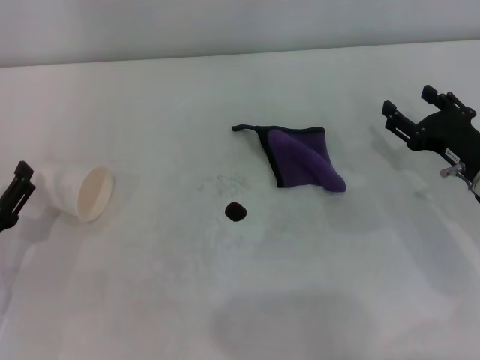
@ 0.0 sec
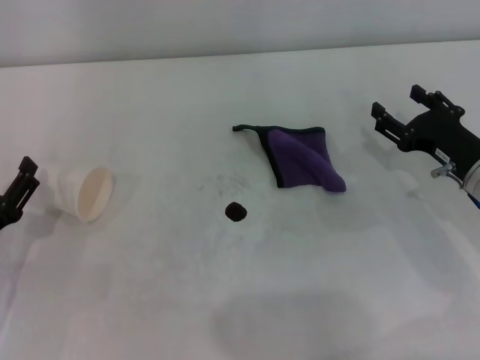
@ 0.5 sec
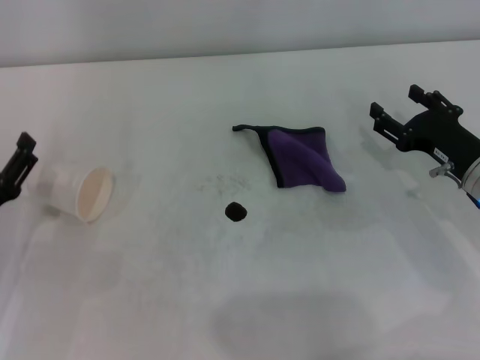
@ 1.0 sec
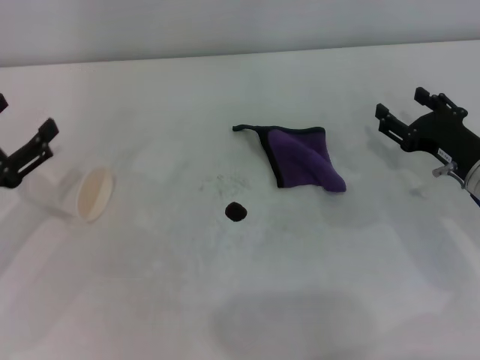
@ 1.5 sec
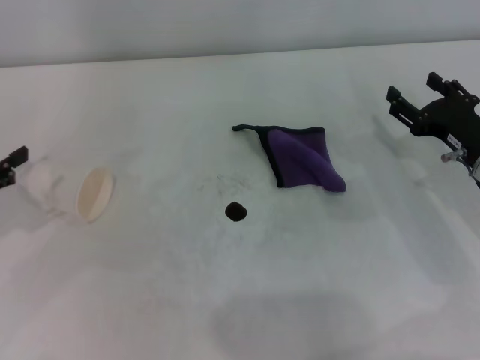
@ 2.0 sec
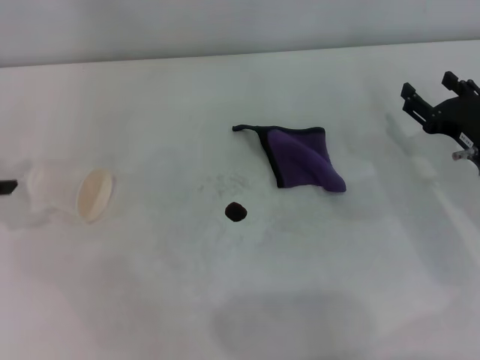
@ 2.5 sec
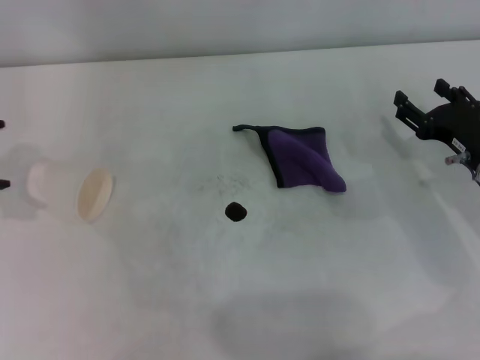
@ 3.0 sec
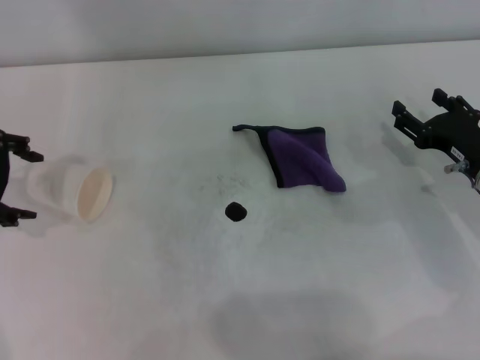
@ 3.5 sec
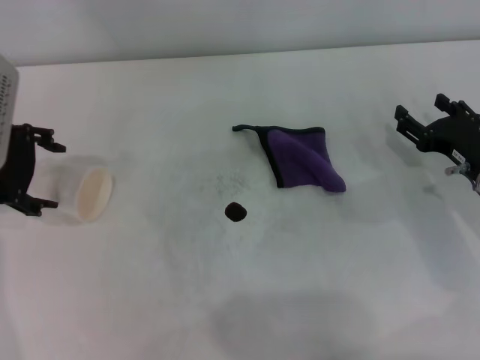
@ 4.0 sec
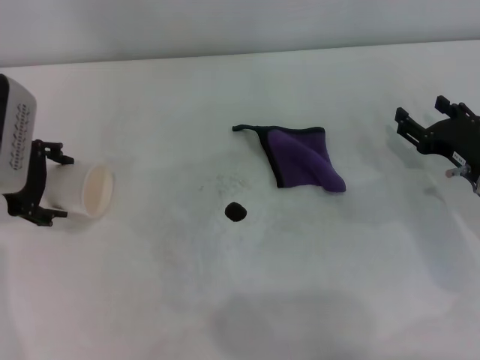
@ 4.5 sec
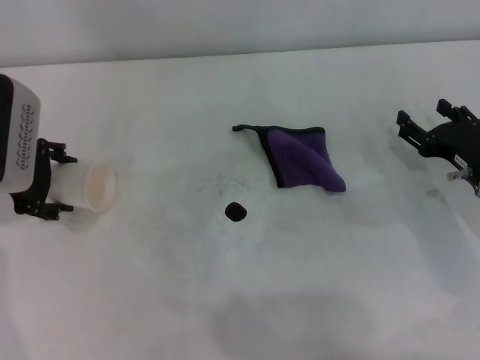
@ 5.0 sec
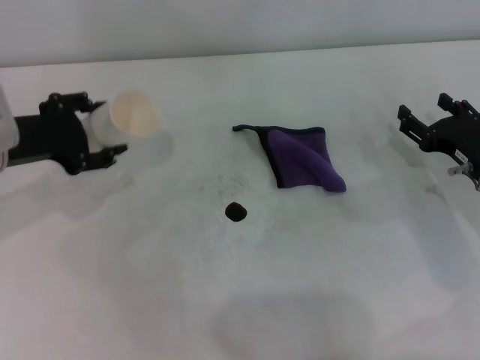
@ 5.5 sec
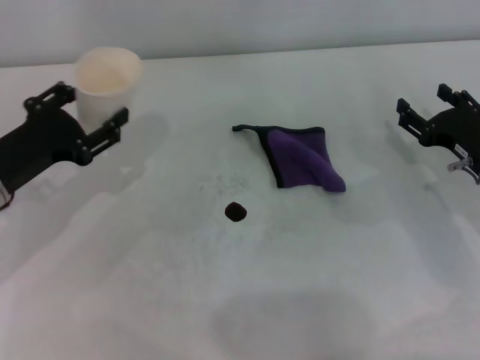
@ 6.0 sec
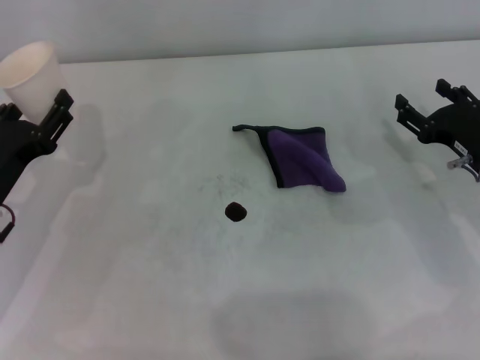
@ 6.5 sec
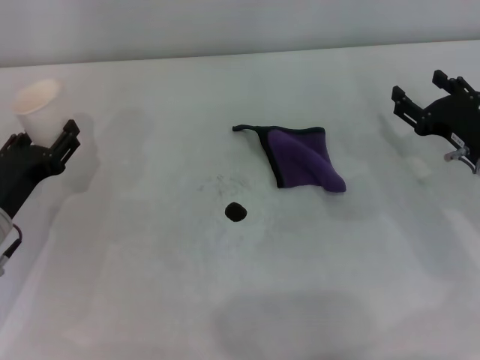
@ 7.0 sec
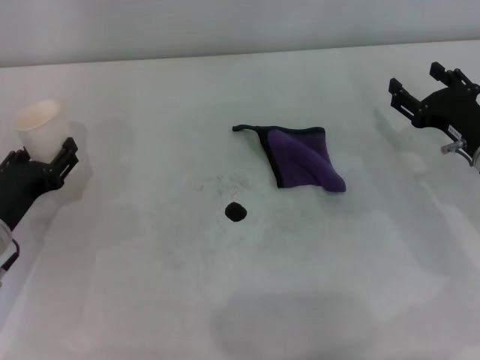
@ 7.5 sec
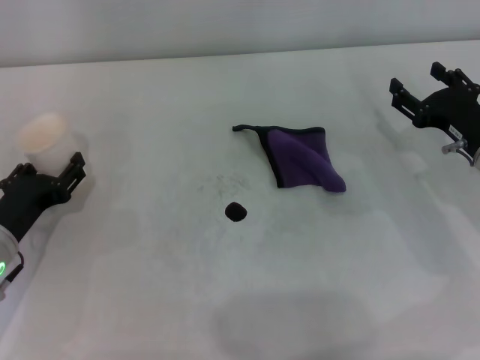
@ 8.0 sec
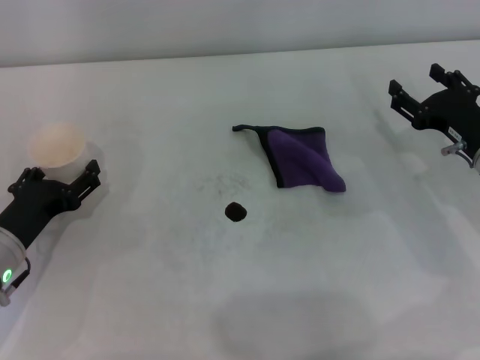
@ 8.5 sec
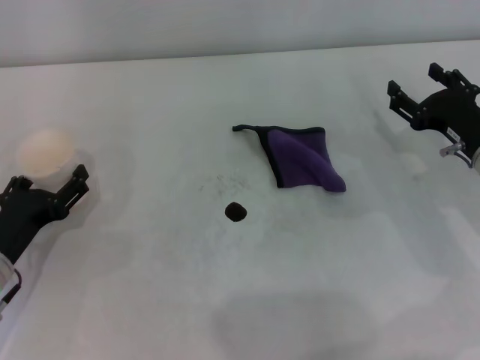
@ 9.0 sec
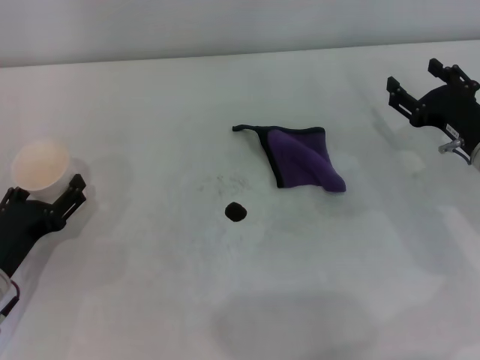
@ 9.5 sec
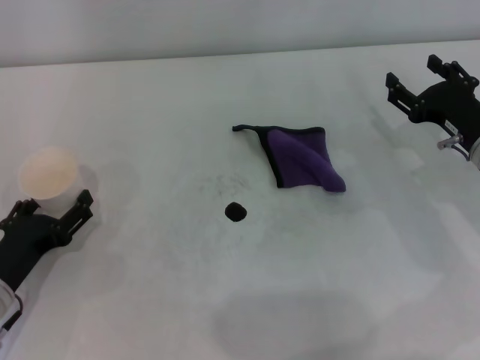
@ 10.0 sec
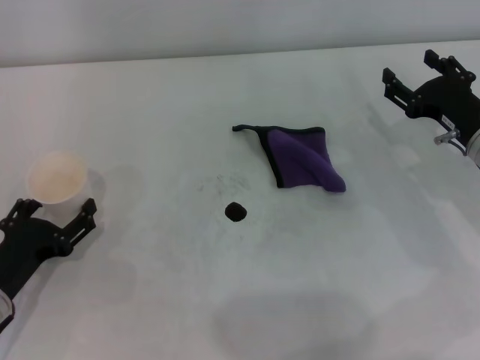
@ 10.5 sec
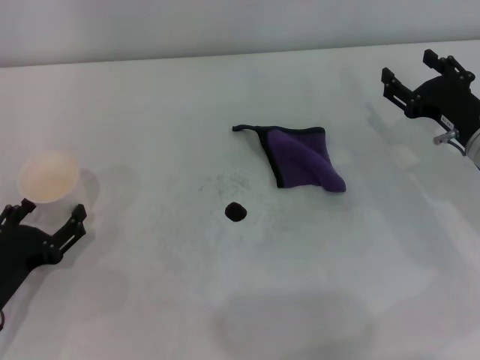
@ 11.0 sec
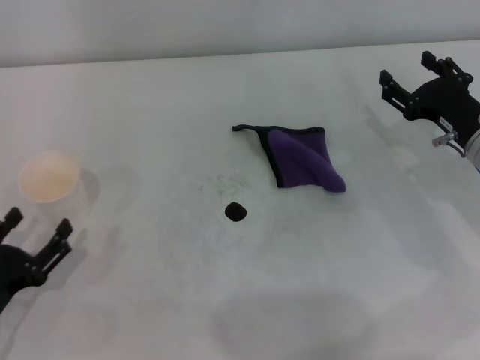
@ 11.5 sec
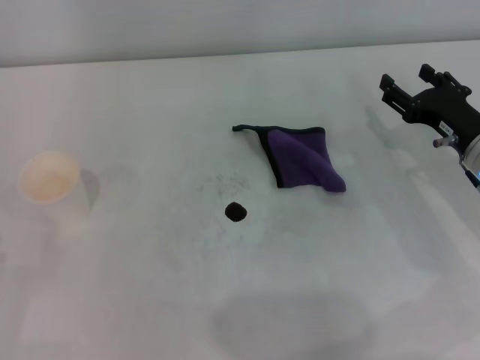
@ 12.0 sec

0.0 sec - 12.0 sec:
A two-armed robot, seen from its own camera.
Step, 0.0 sec - 4.5 sec: Grasp the paper cup with the left gripper.
Step, 5.0 sec - 10.0 sec: Stand the paper cup upright with the left gripper.
0.0 sec - 2.0 sec: The left gripper shifts about 15 cm upward and to the left.
2.0 sec - 4.0 sec: The left gripper shifts approximately 15 cm forward and to the right.
4.0 sec - 6.0 sec: The left gripper heads downward and backward, covering about 10 cm, and closes.
6.0 sec - 8.0 sec: The left gripper heads downward, covering about 5 cm.
8.0 sec - 10.0 sec: The left gripper changes place by approximately 5 cm, and opens its fingers.
10.0 sec - 12.0 sec: The left gripper is displaced backward and to the left by approximately 10 cm.

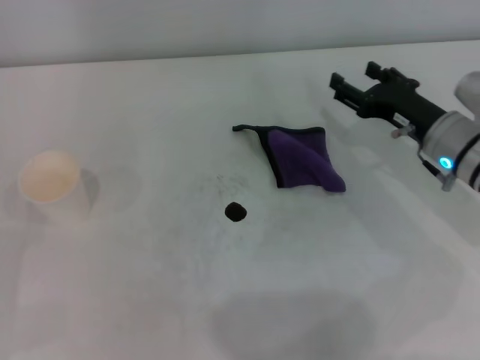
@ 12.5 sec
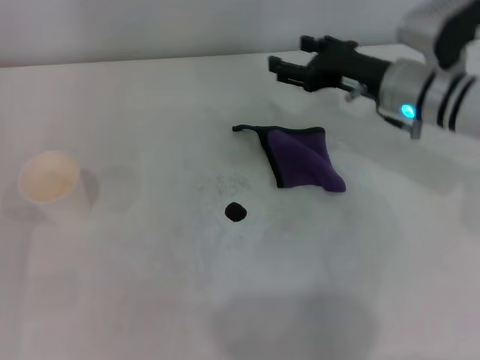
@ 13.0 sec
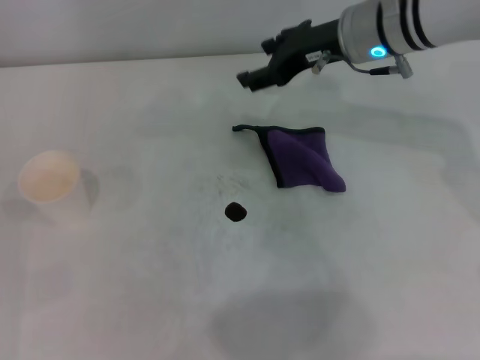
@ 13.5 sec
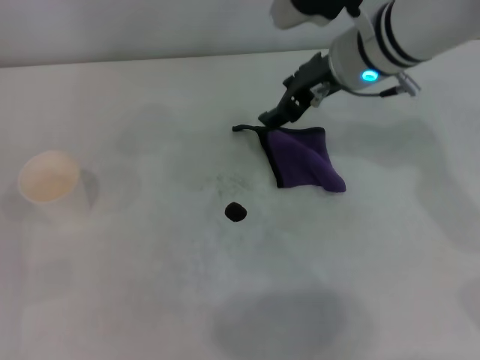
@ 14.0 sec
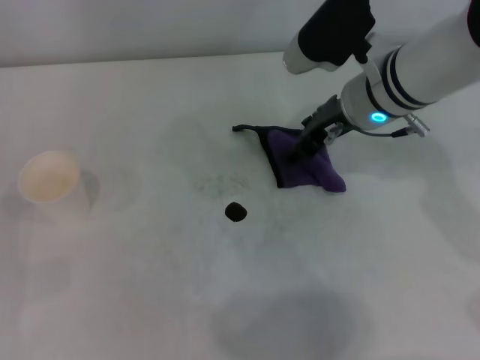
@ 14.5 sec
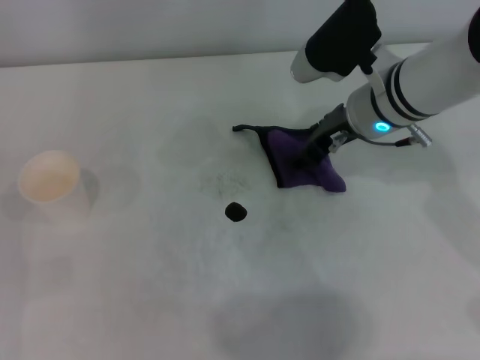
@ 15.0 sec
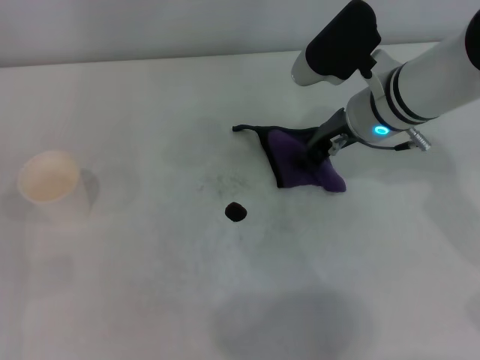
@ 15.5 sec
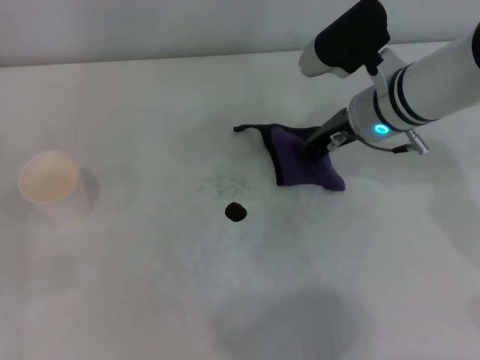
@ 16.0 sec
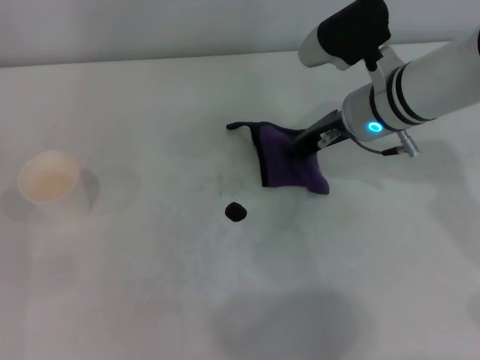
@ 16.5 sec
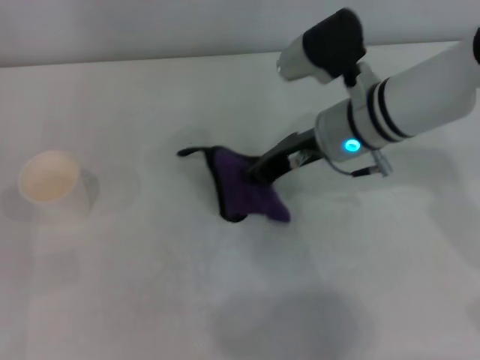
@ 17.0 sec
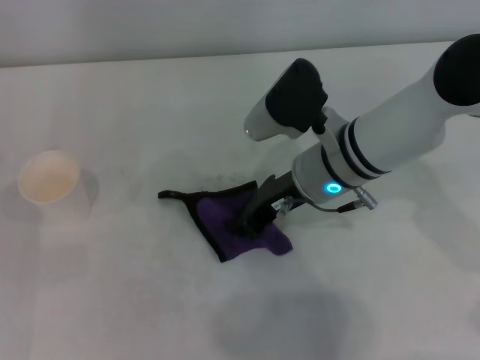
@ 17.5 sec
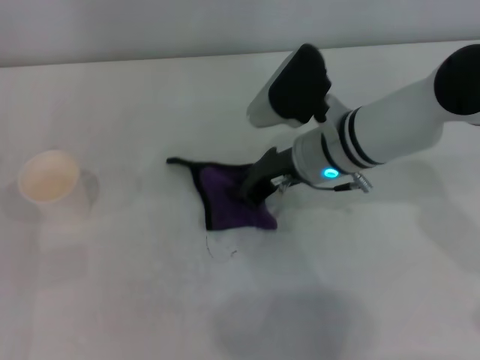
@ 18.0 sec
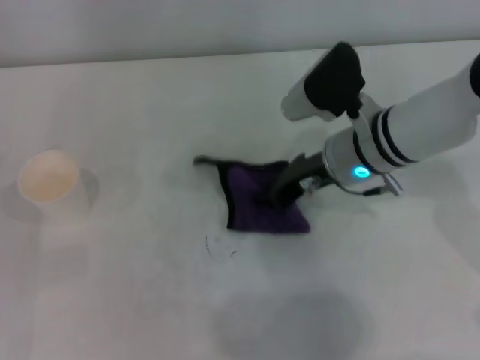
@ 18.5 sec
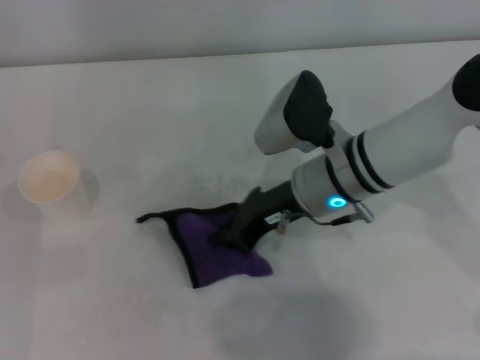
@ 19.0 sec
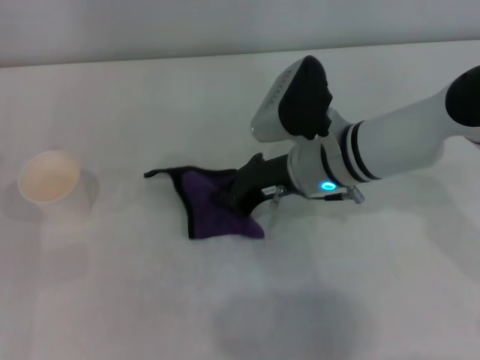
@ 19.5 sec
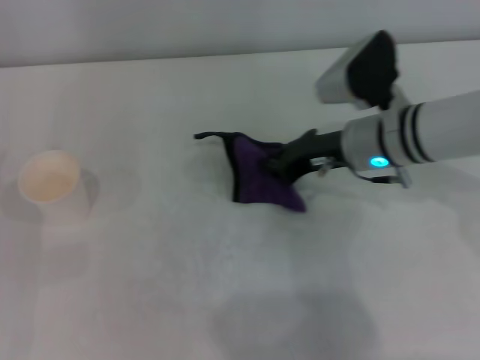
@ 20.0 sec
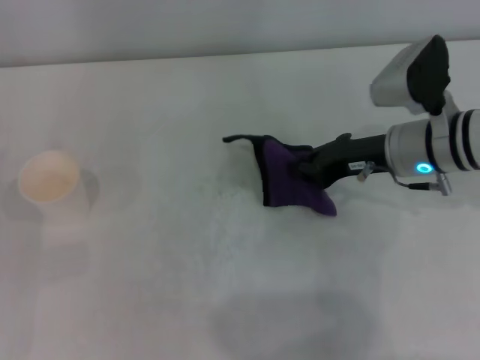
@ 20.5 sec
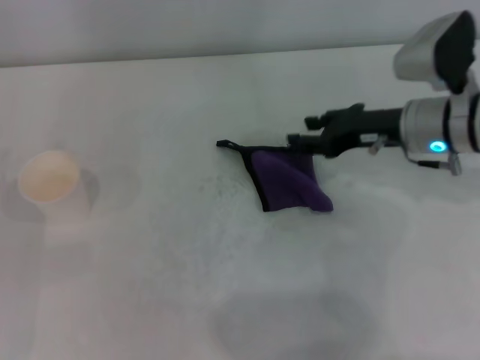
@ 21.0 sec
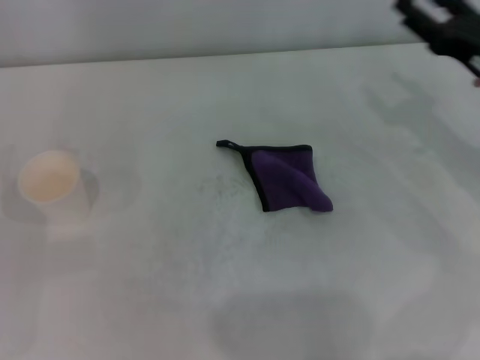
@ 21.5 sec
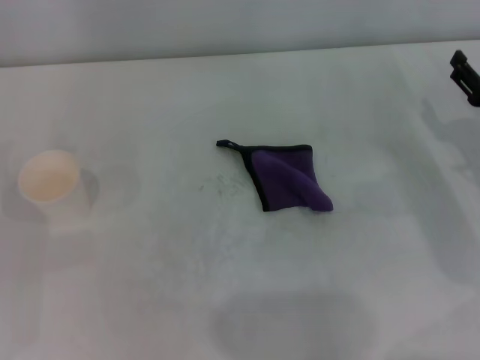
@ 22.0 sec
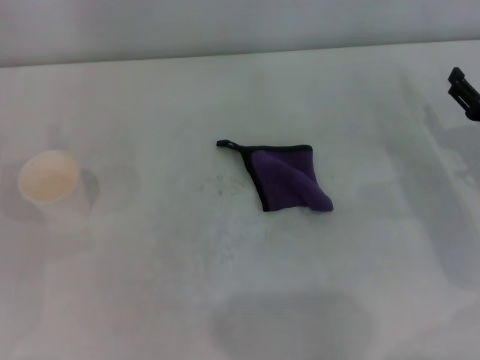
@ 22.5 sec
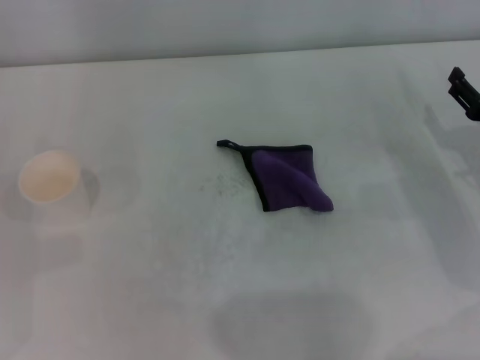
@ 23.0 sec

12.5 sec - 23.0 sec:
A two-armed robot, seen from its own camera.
Step, 12.5 sec - 16.0 sec: Grasp the rag with the right gripper.
Step, 16.5 sec - 19.5 sec: Wipe the stains off the table with the right gripper.
Step, 20.0 sec - 20.5 sec: Place the rag on the table with the right gripper.
12.5 sec - 14.5 sec: The right gripper travels to the left and upward by approximately 15 cm.
14.5 sec - 16.5 sec: The right gripper closes.
16.5 sec - 19.0 sec: The right gripper goes approximately 10 cm backward and to the left.
19.0 sec - 21.0 sec: The right gripper shifts roughly 10 cm to the right, and opens its fingers.
21.0 sec - 23.0 sec: The right gripper goes some 15 cm to the right, backward and downward, and opens up.
